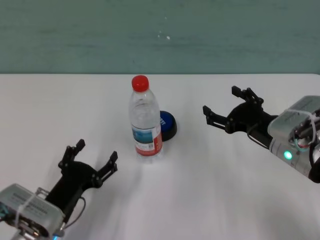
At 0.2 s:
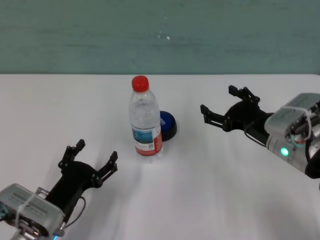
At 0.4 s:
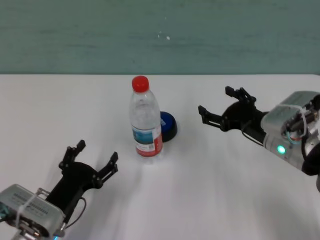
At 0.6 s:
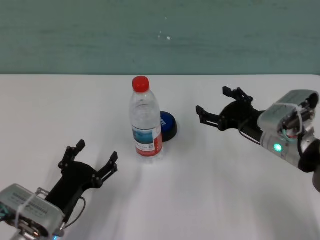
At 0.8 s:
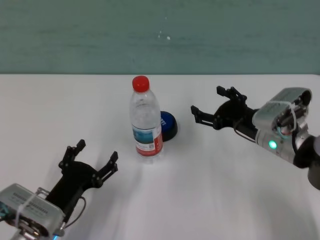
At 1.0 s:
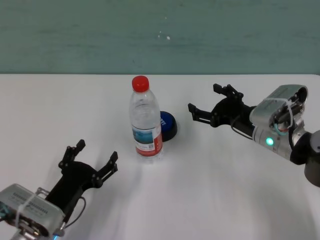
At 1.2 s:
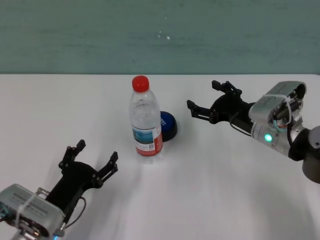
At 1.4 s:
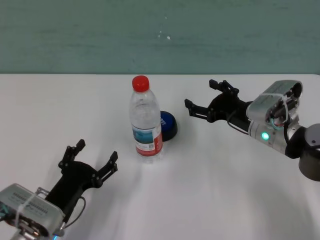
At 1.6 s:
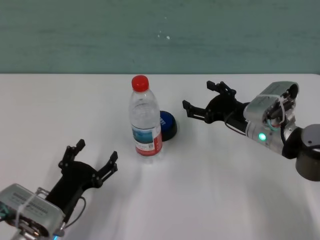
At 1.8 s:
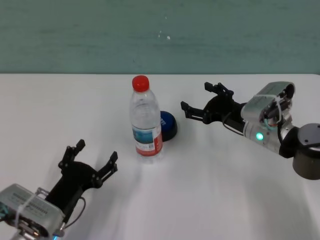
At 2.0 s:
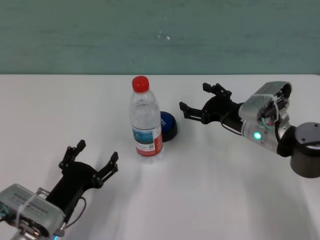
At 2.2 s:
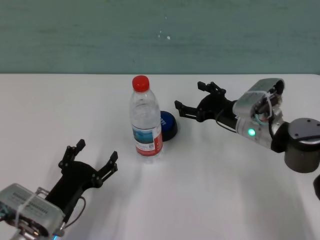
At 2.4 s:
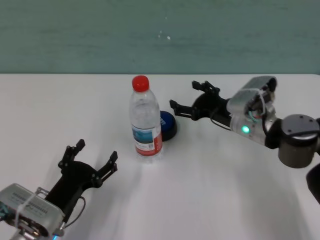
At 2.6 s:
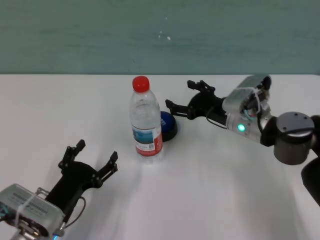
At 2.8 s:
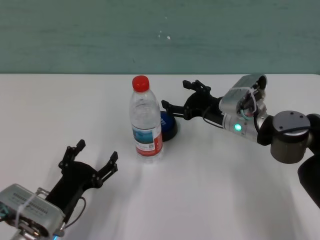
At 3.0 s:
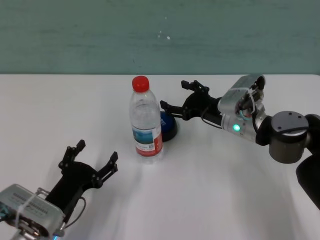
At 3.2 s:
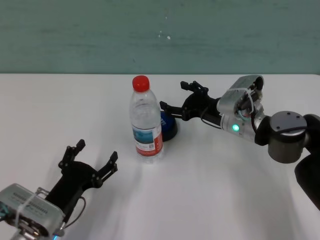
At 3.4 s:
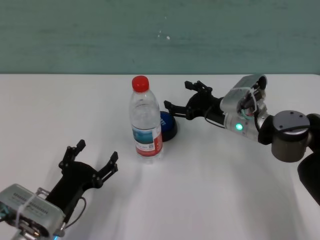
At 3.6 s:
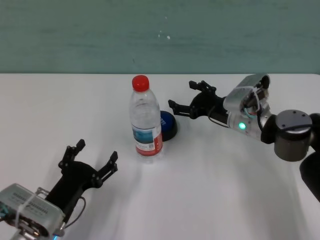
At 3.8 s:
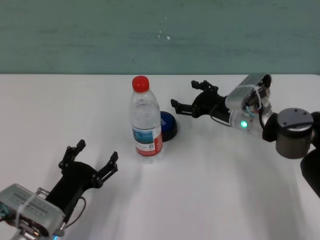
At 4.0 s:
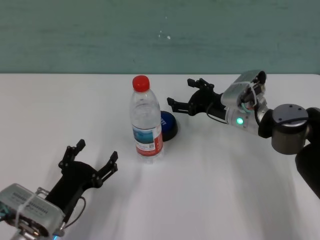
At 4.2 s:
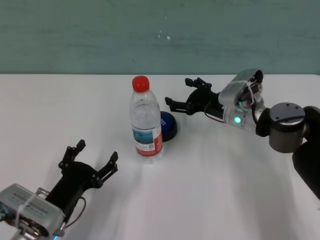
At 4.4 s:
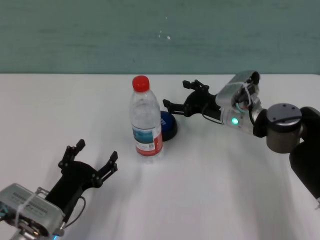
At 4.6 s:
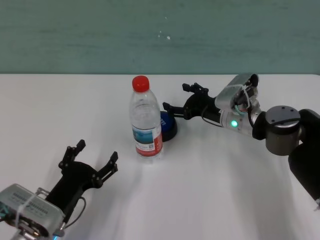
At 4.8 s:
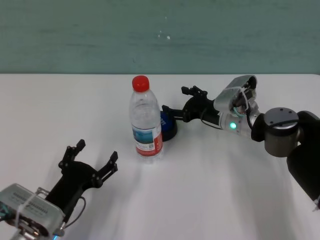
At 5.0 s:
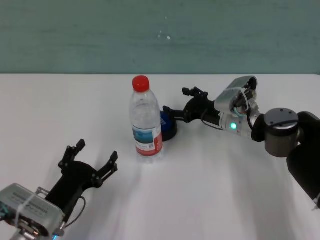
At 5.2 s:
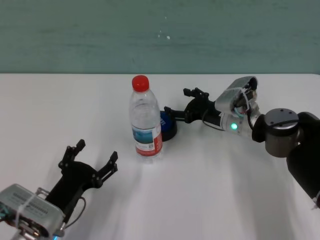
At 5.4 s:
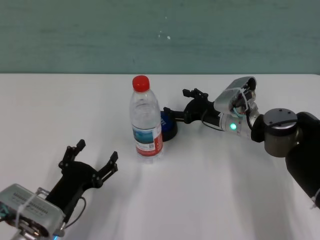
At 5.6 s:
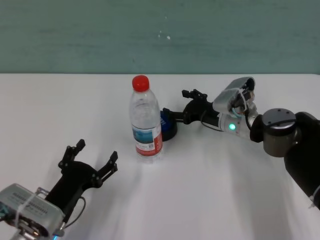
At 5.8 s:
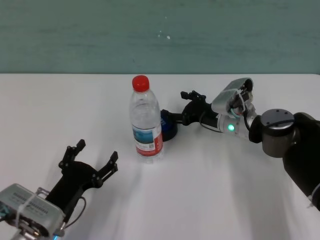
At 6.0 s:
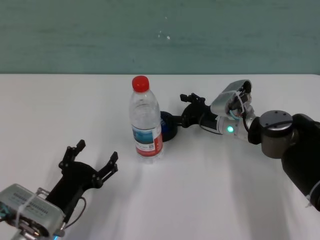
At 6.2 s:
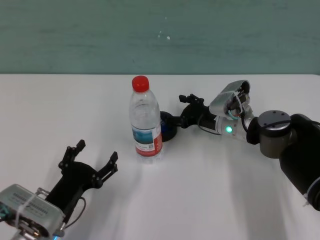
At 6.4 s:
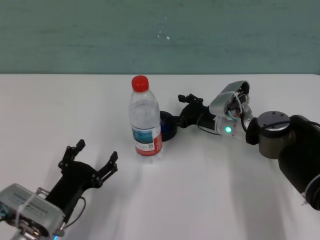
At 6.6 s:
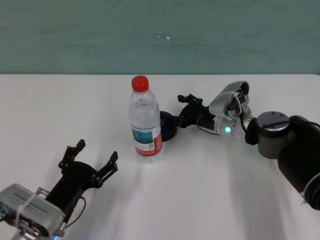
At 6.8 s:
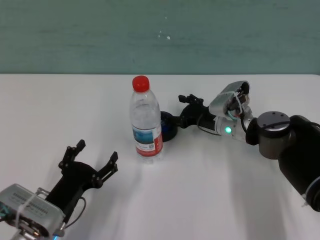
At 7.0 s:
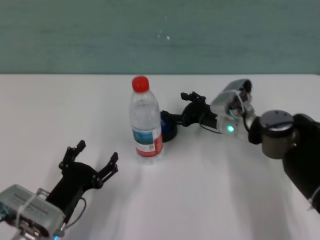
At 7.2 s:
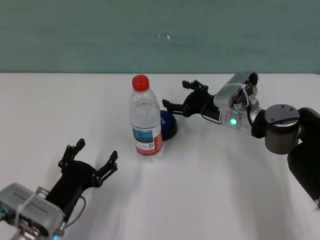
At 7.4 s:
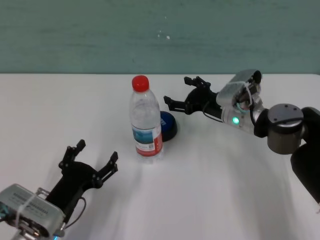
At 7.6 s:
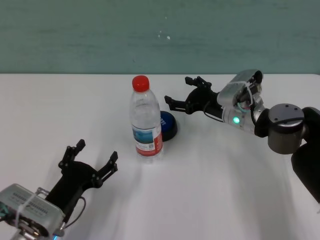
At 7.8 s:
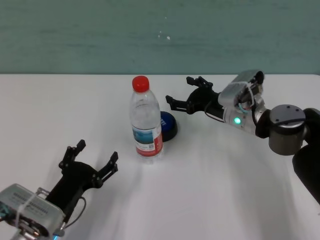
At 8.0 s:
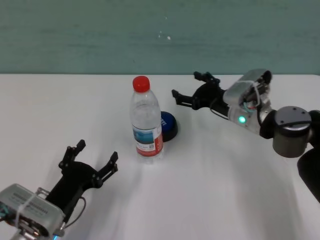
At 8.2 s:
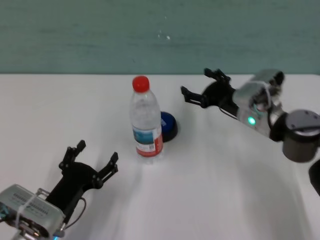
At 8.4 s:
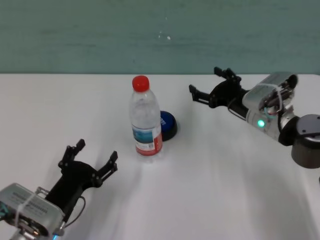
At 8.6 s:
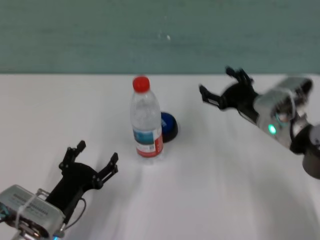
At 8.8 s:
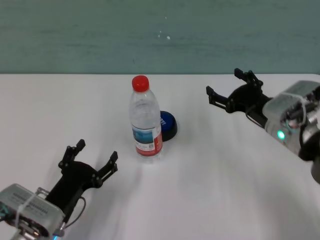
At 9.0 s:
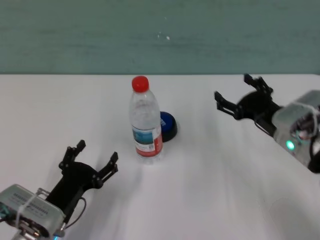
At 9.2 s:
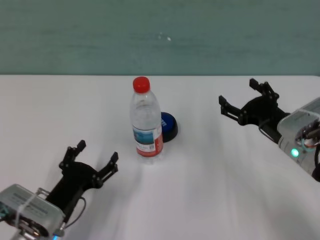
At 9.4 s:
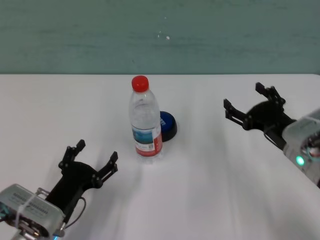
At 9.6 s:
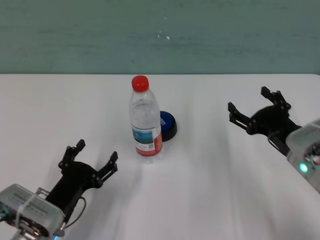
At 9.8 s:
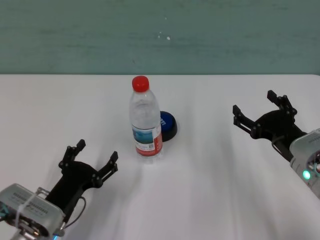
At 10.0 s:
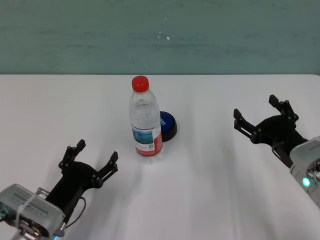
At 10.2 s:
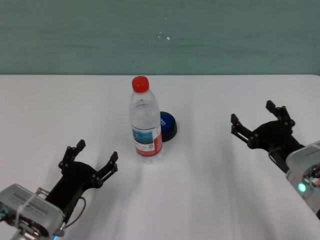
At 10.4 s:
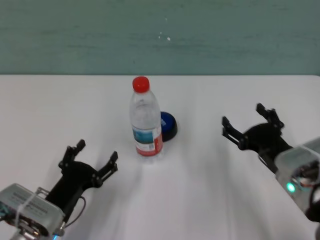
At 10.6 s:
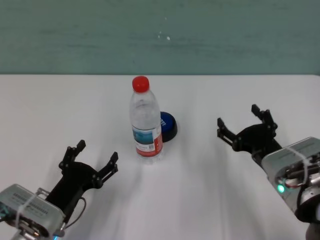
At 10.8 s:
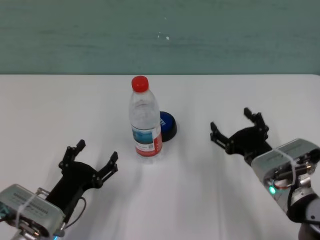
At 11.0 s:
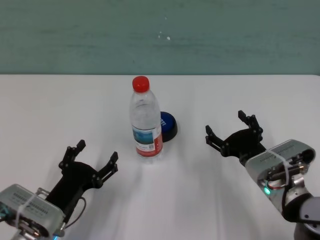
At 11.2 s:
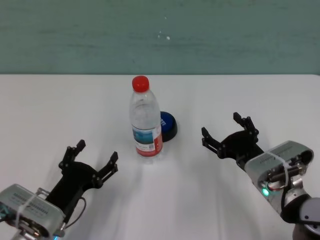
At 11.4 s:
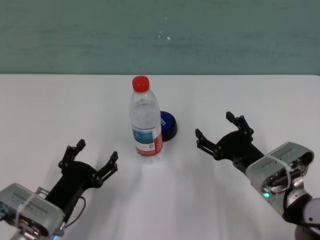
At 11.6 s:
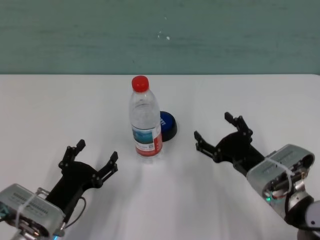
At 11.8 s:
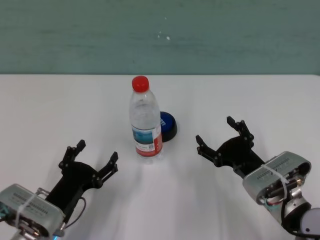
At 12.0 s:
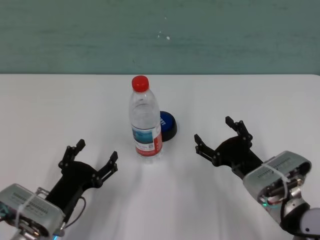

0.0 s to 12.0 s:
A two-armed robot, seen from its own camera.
Task of the whole recording: after avoiding the water bottle on the table, press the button.
Step, 0.0 to 7.0 s: Press the button blocked by the bottle with right gripper.

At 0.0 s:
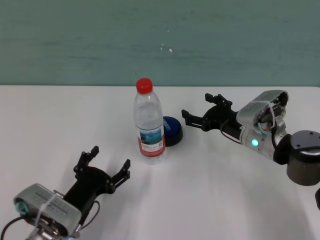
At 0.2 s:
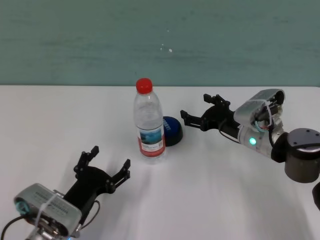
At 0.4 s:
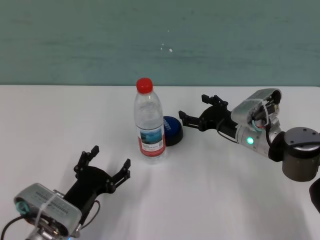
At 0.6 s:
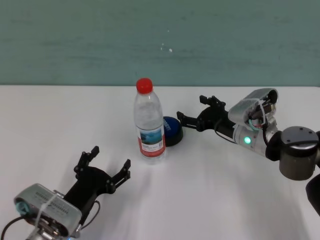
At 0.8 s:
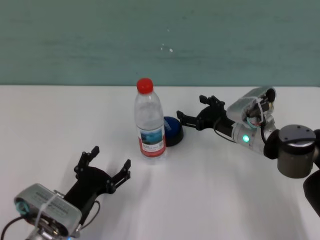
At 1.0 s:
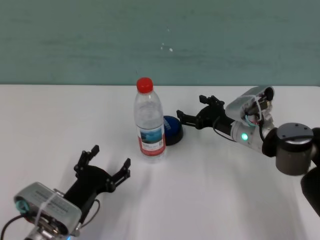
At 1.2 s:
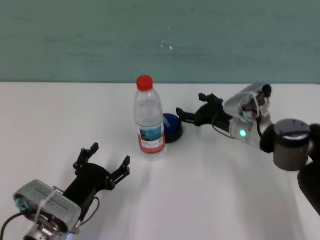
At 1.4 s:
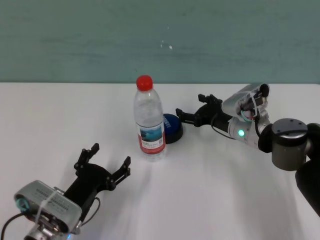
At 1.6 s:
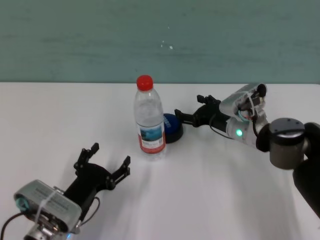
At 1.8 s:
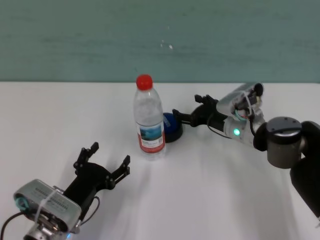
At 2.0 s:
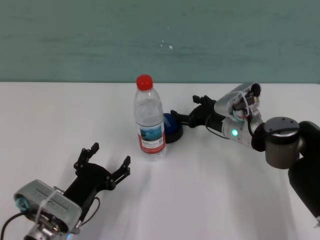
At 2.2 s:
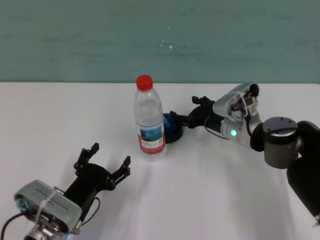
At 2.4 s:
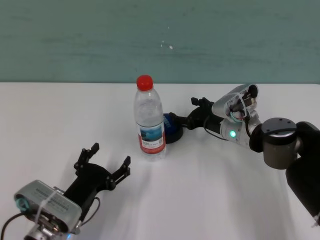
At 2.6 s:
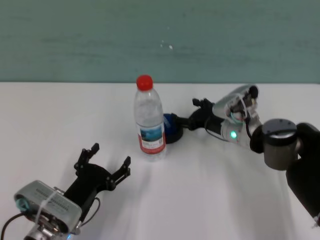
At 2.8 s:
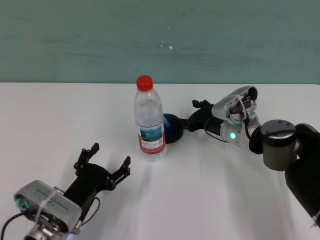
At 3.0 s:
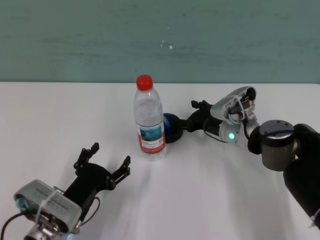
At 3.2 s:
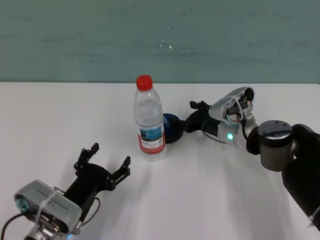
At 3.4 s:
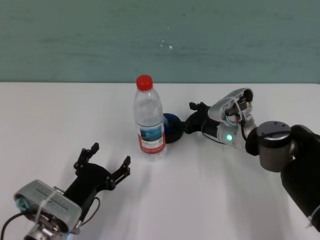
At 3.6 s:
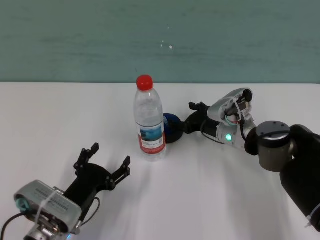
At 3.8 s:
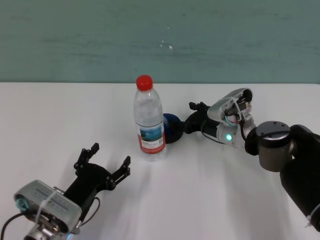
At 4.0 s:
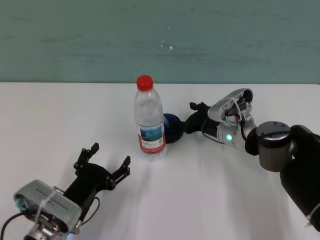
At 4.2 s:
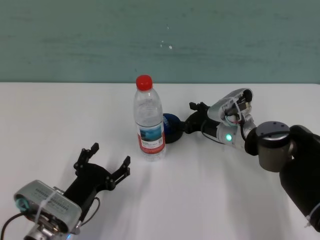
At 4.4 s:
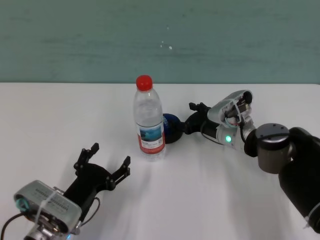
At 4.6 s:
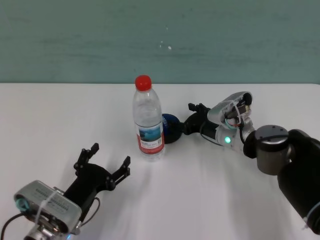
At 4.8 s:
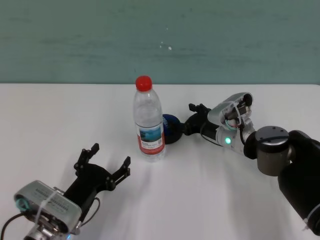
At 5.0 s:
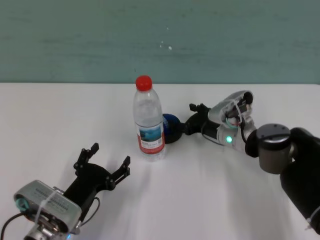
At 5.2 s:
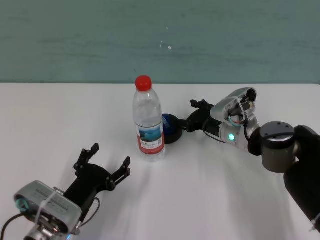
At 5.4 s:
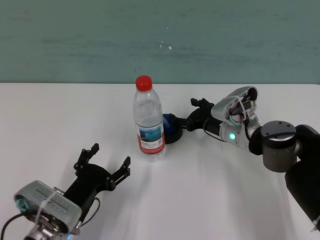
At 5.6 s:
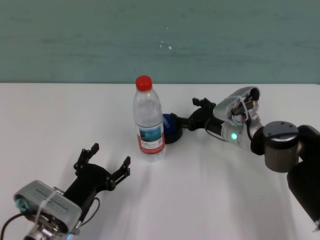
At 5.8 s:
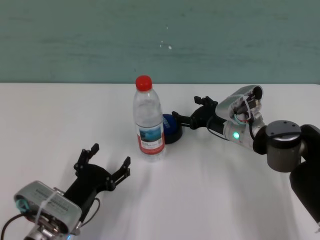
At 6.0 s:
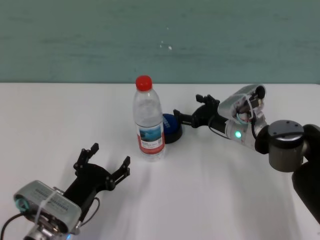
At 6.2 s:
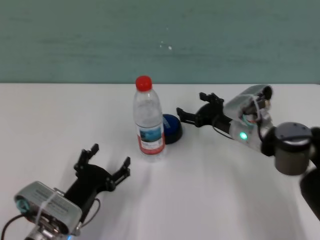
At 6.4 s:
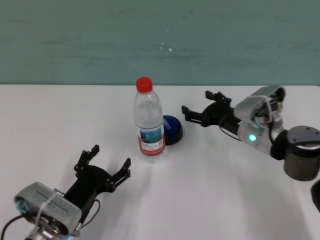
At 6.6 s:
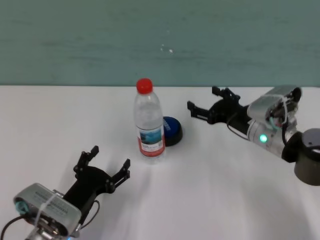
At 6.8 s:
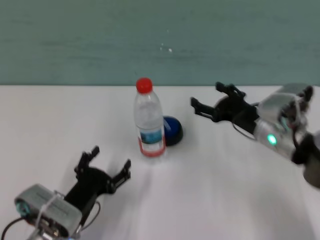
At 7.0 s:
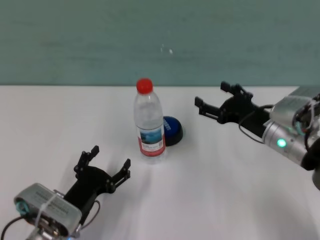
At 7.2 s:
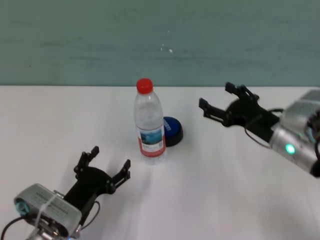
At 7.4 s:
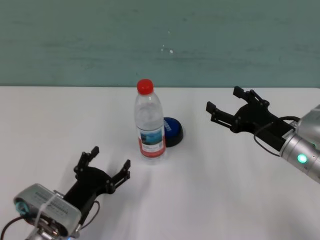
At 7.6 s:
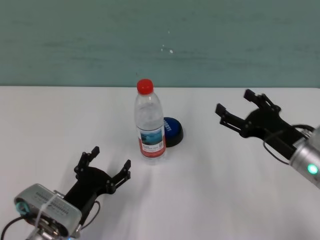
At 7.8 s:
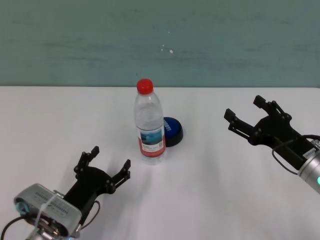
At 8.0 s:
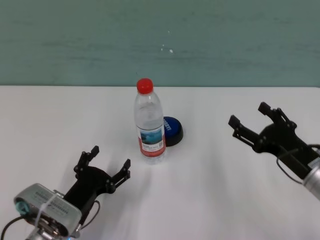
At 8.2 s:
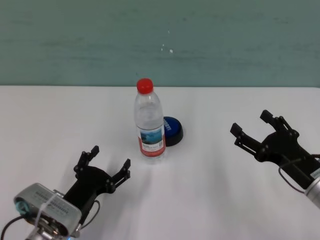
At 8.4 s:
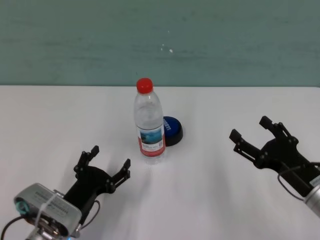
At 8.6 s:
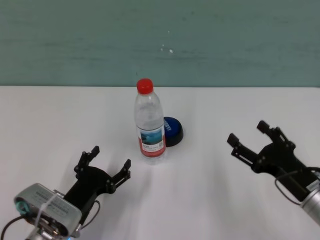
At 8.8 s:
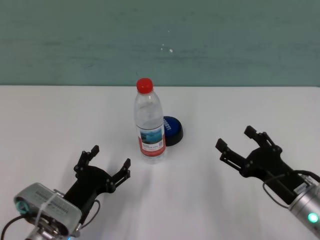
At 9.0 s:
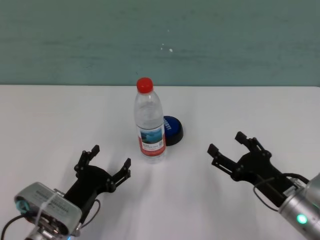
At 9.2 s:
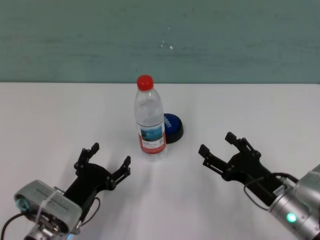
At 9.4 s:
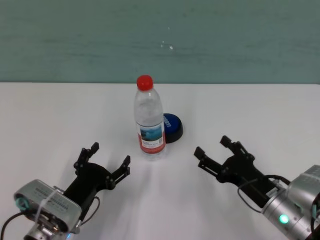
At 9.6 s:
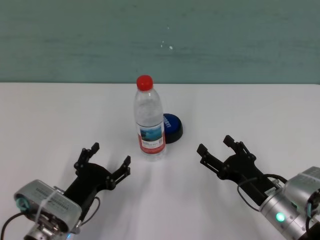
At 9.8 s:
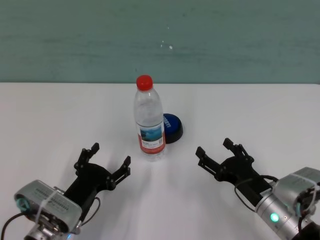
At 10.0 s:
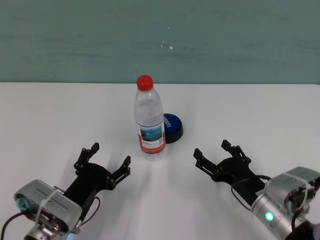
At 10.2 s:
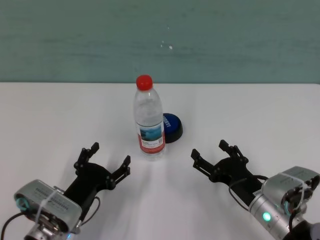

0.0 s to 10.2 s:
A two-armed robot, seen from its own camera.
Task of the whole recording: after avoiding the water bottle on the table, press the button.
Step, 0.0 to 5.2 s: Press the button blocked by the bottle with right gripper.
